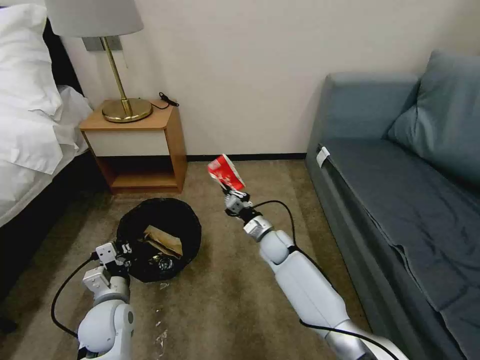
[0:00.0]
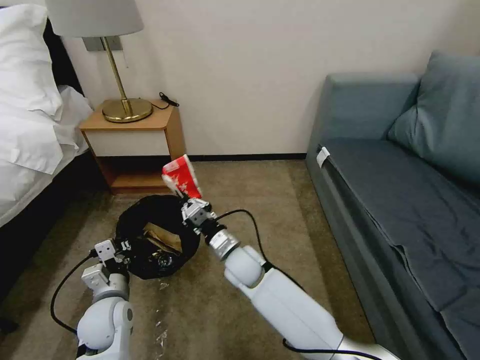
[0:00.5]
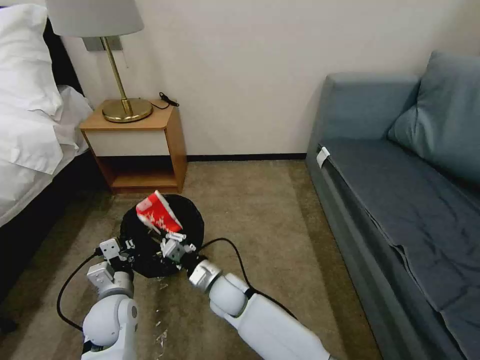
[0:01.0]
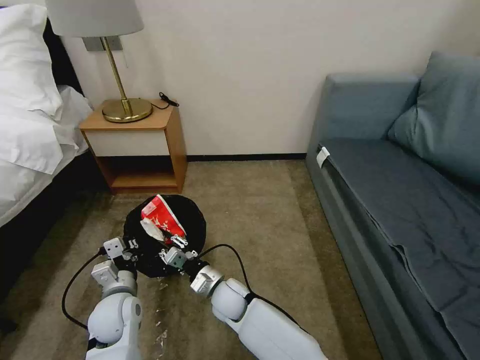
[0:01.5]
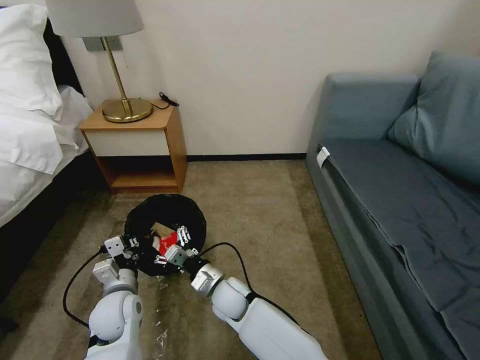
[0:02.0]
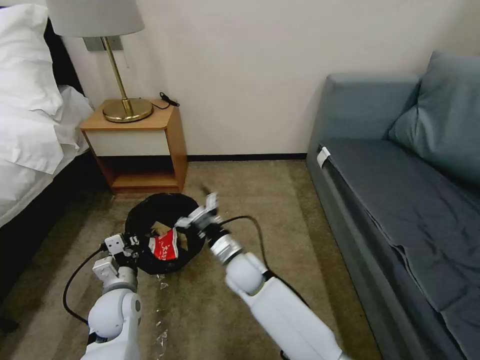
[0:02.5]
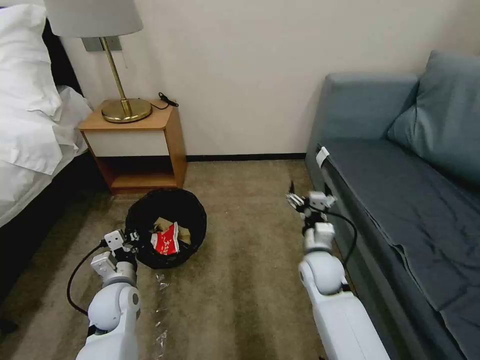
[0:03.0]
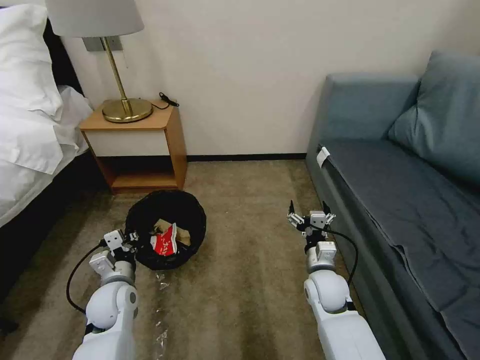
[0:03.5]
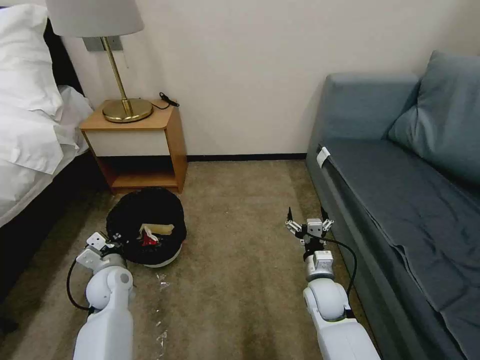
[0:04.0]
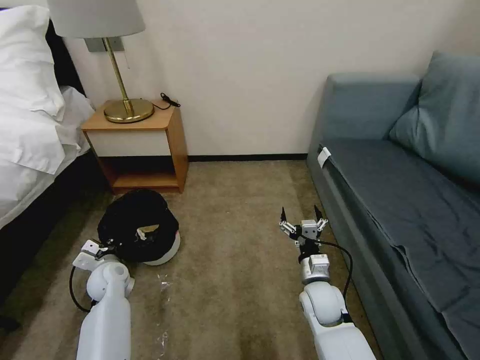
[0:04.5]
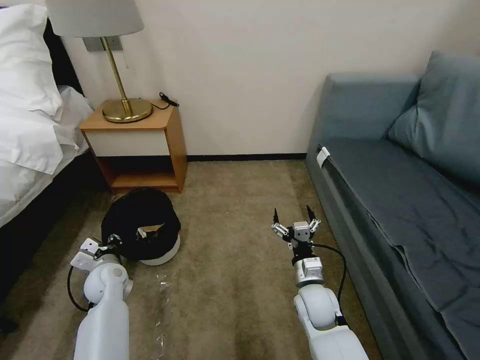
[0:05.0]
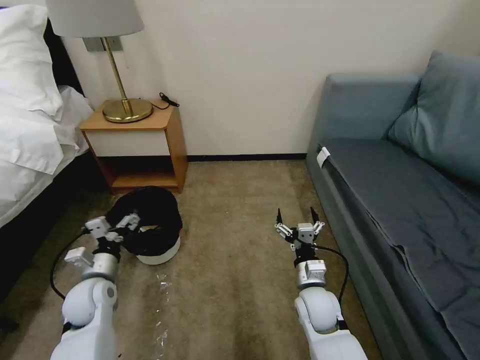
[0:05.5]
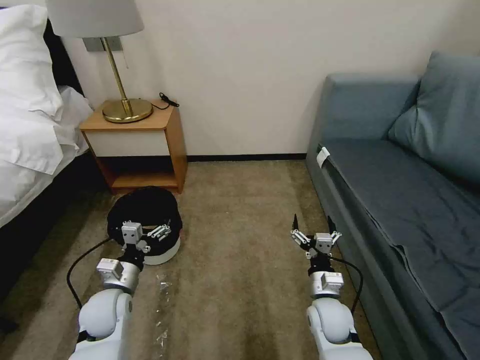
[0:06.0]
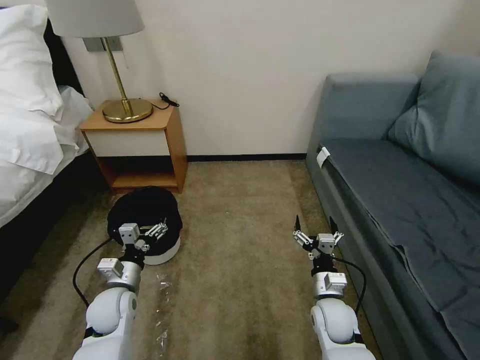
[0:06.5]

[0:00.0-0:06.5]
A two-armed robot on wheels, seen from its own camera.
Task of the whole recording: Pick up the trash bin, then pick up the garbage on the floor and place it into the trash bin.
0:00.0 to 0:02.0: The right gripper goes about 20 cm backward and to the left, and opens up.
0:02.0 to 0:04.5: The right gripper shifts about 20 cm to the right. The left gripper goes roughly 10 cm forward and to the left.
0:04.5 to 0:06.5: The left gripper moves backward and to the right, approximately 10 cm, and opens.
